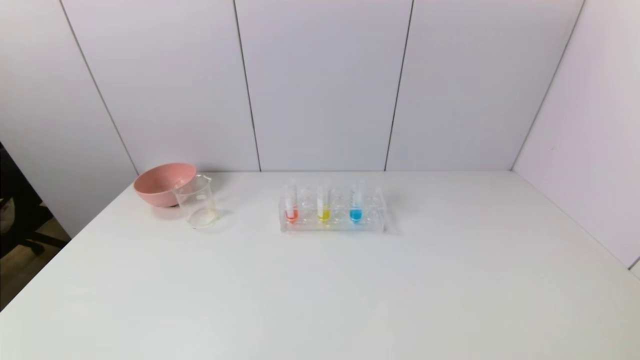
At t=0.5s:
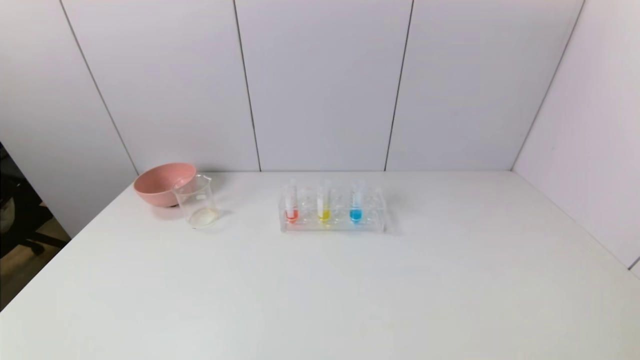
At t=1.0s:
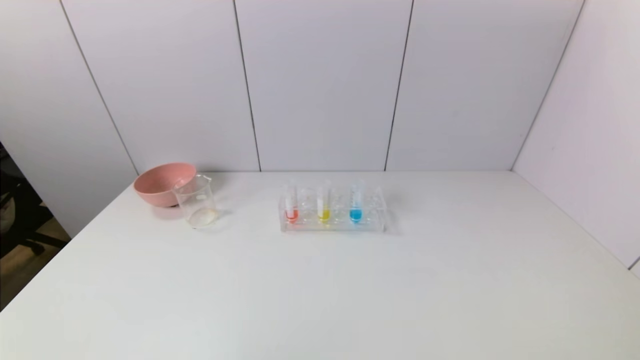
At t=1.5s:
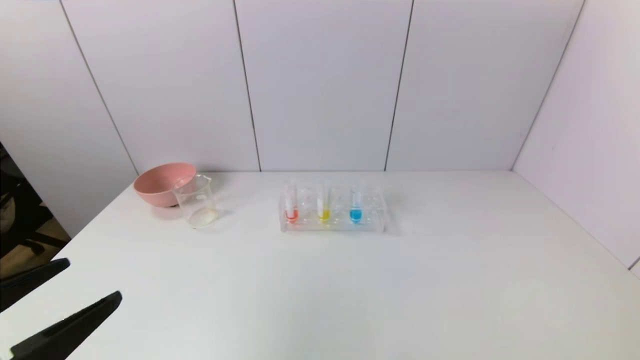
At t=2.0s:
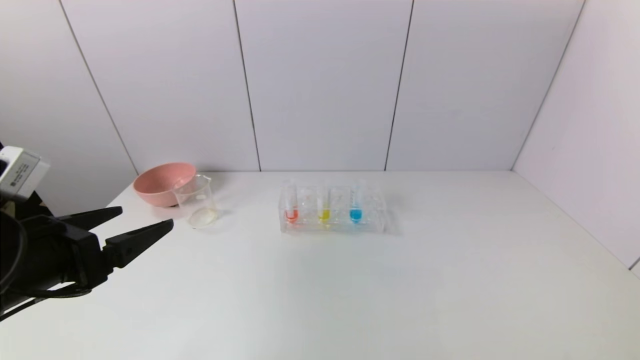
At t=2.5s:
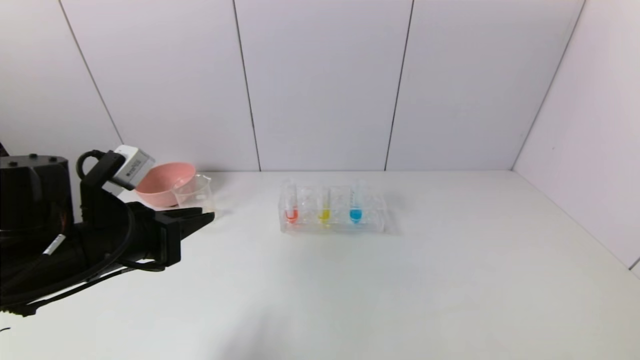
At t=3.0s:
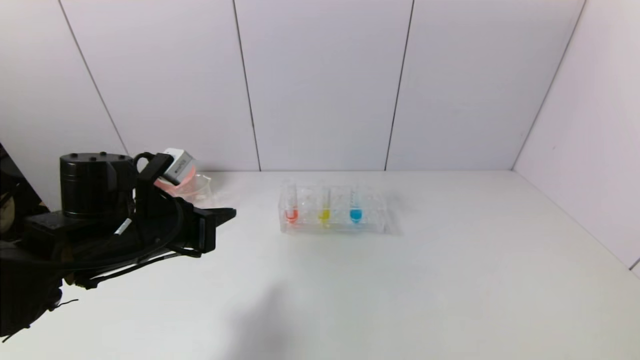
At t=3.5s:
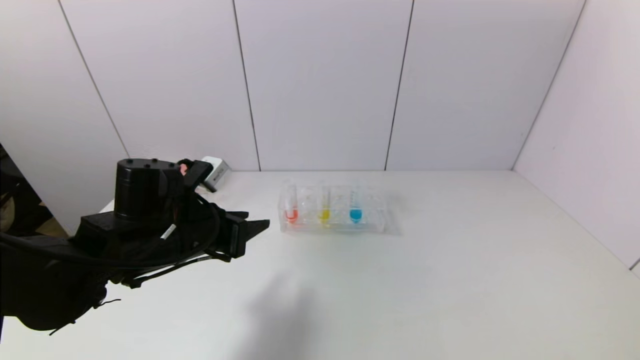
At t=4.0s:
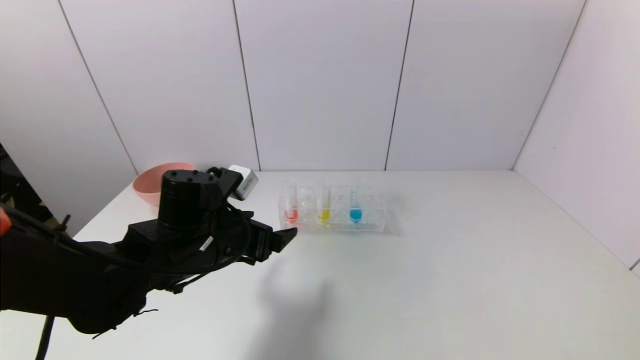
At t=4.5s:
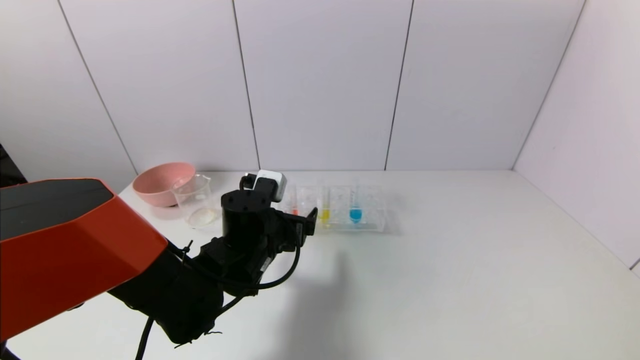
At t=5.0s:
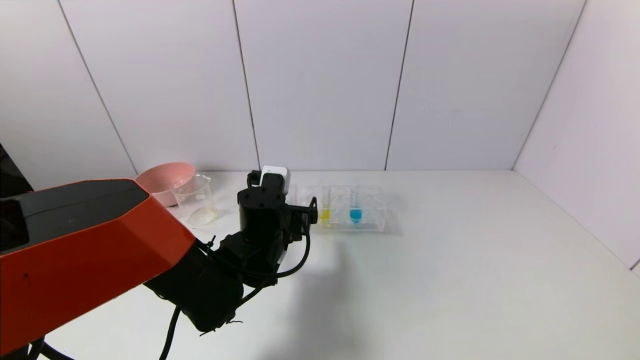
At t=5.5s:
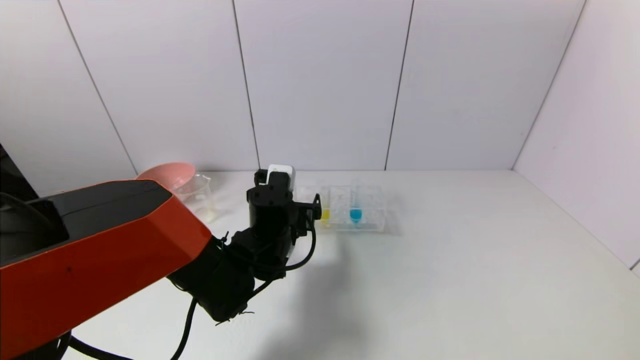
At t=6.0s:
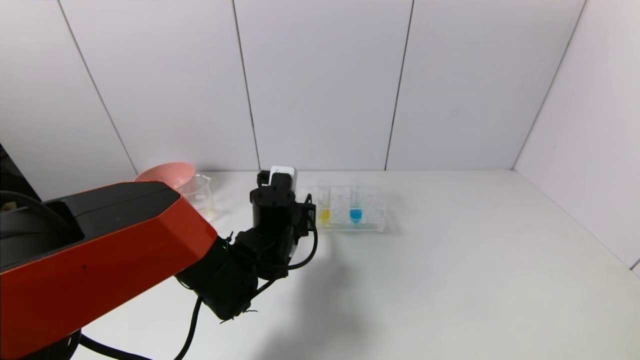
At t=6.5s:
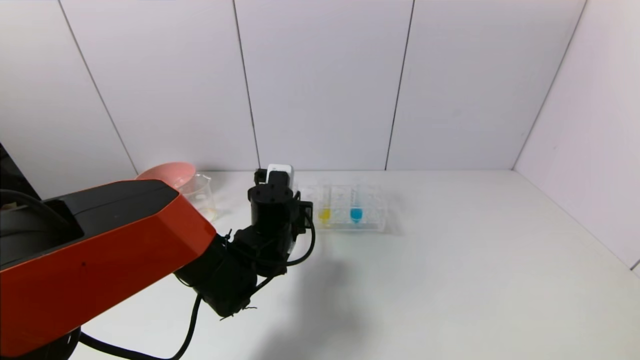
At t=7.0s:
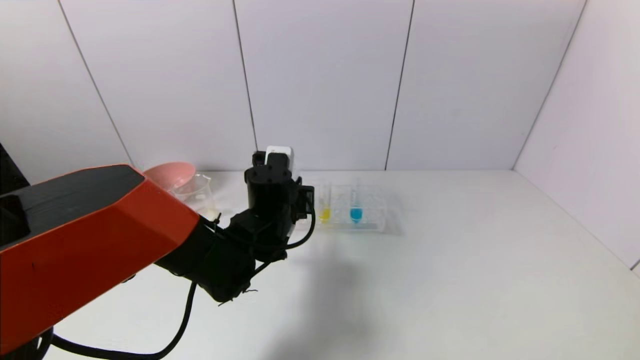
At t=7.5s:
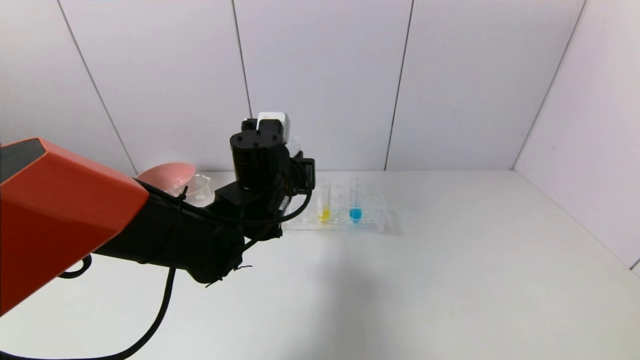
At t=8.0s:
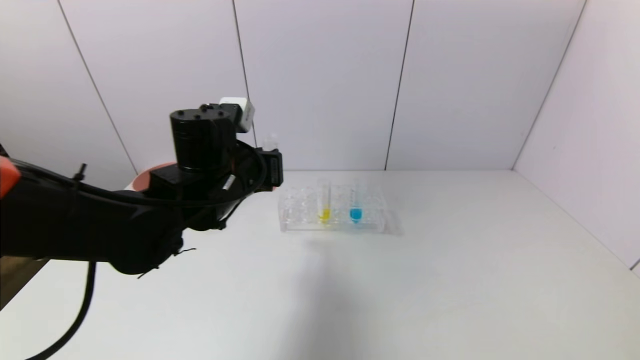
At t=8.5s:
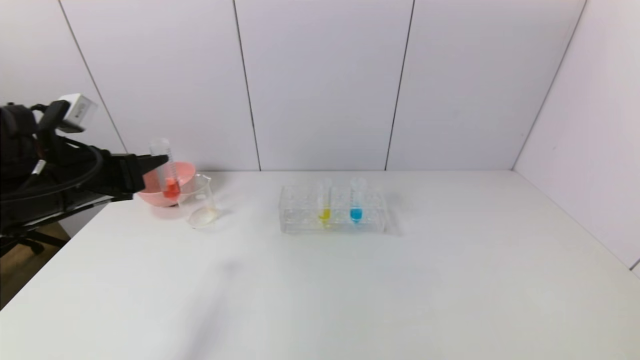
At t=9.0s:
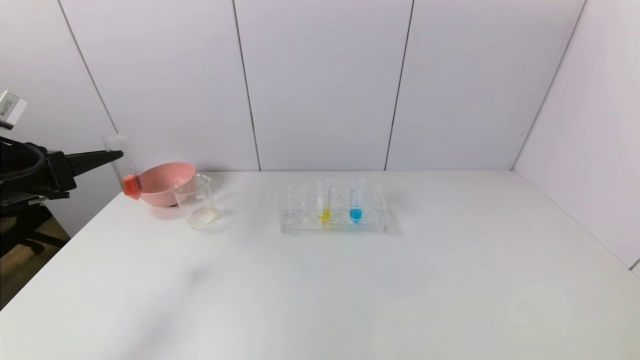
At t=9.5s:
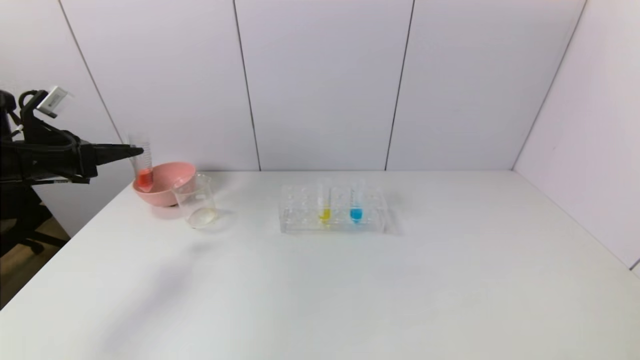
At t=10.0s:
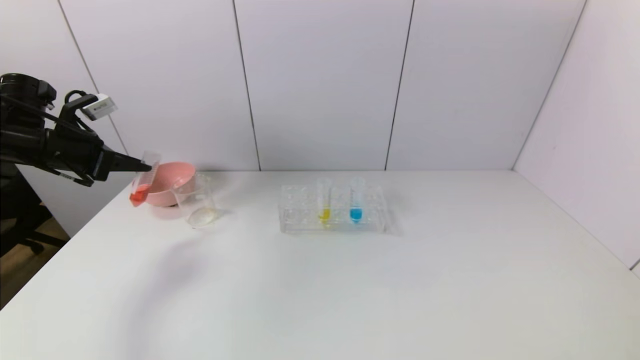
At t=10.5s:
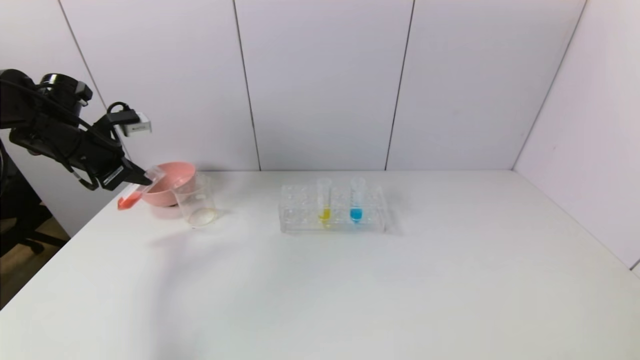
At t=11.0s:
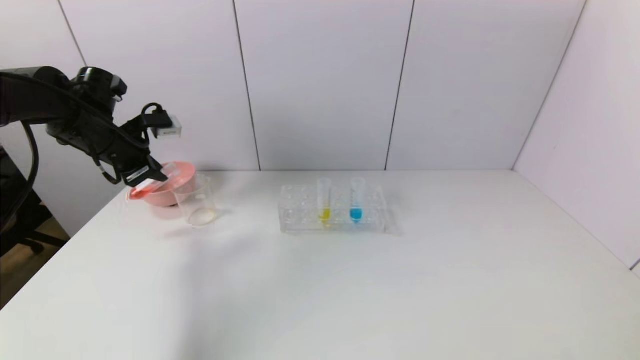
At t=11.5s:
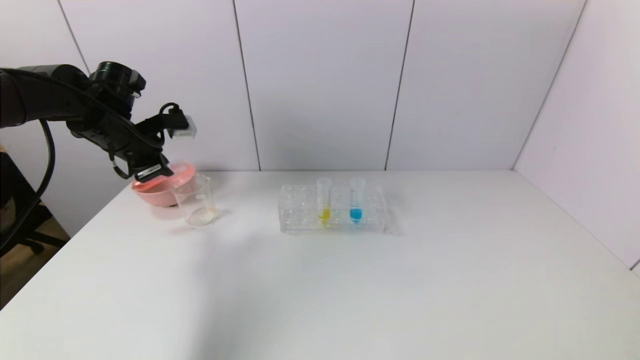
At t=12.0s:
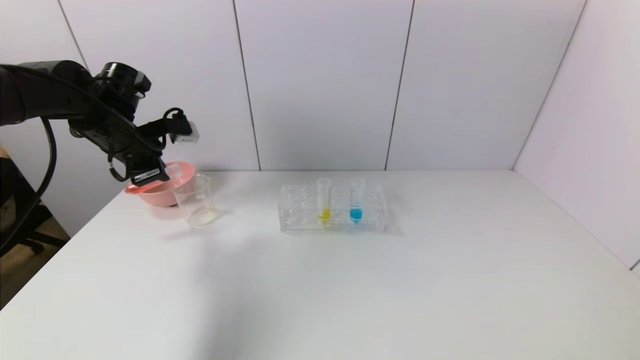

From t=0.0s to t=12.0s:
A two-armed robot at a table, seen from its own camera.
Task of the whole recording: pick up the test tube with yellow pigment and the test tube with red pigment by grippers and pour them into the beaker.
Step, from t=0.0s to t=6.5s: Grasp the red reagent with the left gripper.
From t=0.0s to t=2.0s: The left gripper is displaced forward and upward by some 20 cm.
From t=2.0s to t=4.0s: The left gripper is displaced to the right, forward and downward by some 20 cm, and closes and opens again.
From t=4.0s to t=6.0s: The left gripper moves to the right and forward, approximately 10 cm, and closes its fingers.
From t=6.0s to t=8.0s: The left gripper heads upward and to the left, covering some 15 cm, and closes up.
From t=8.0s to t=10.0s: The left gripper travels to the left by roughly 25 cm.
From t=10.0s to t=12.0s: The left gripper shifts some 10 cm to the right.

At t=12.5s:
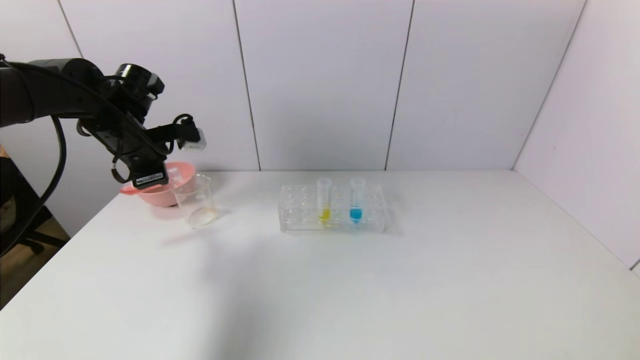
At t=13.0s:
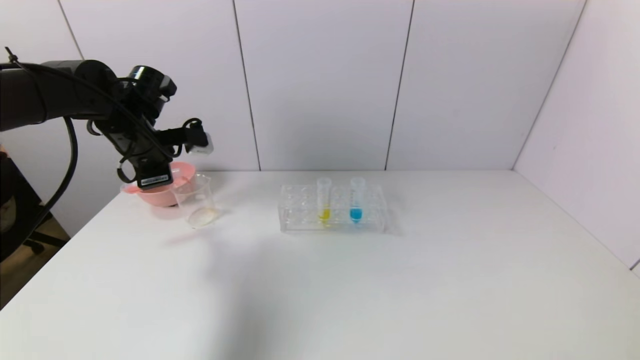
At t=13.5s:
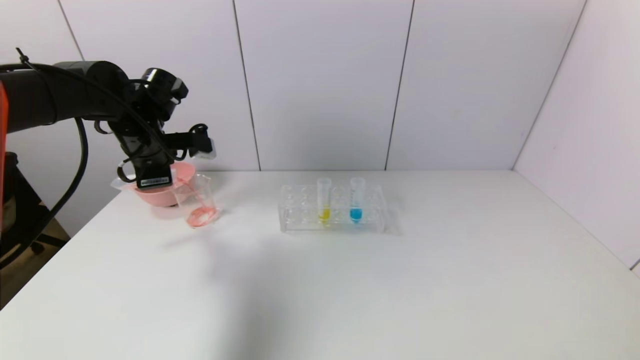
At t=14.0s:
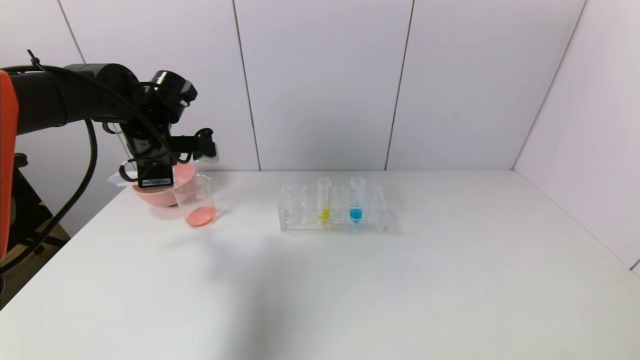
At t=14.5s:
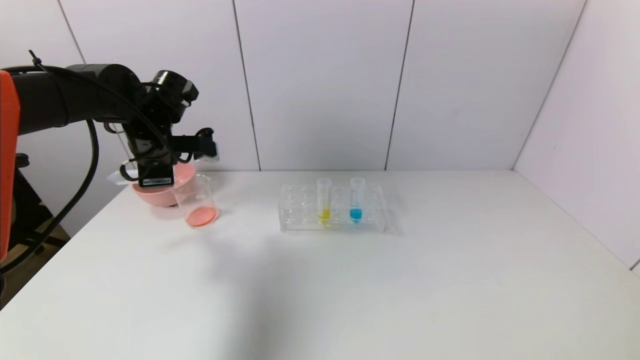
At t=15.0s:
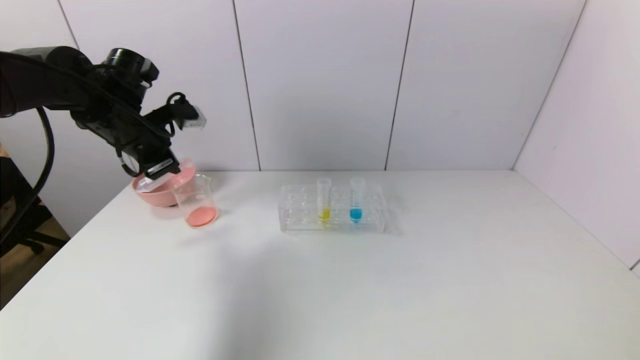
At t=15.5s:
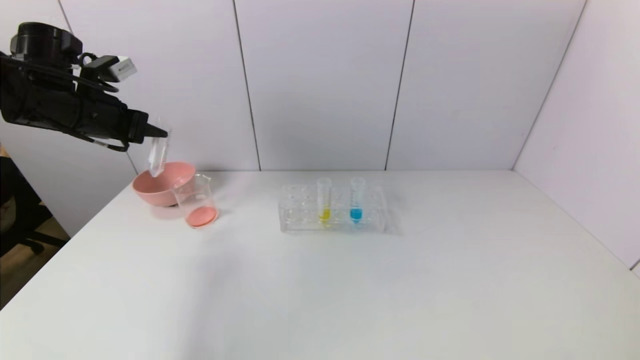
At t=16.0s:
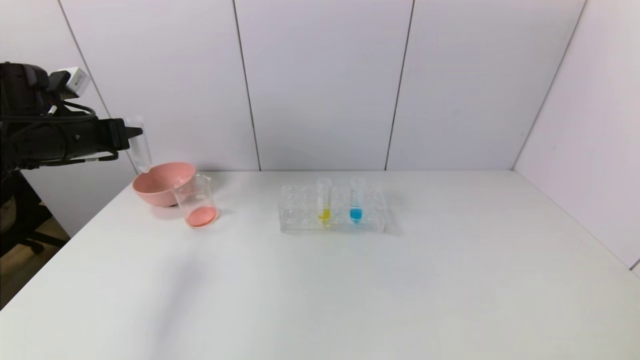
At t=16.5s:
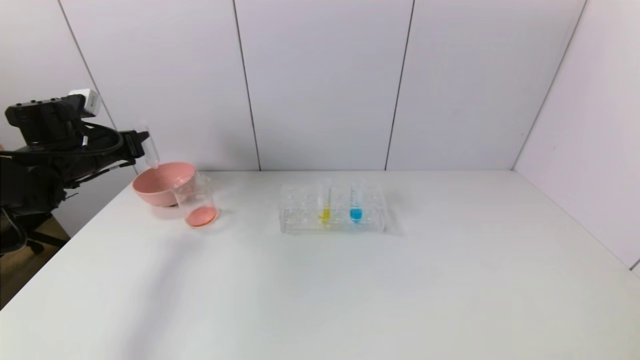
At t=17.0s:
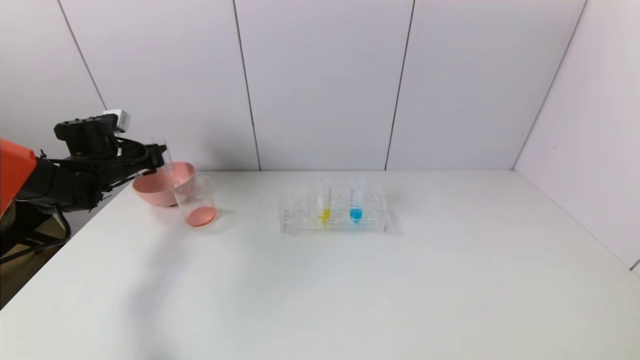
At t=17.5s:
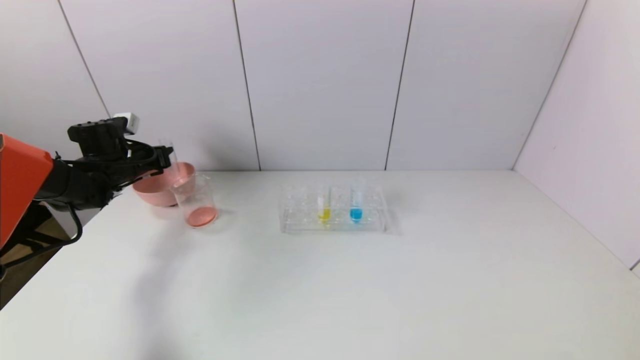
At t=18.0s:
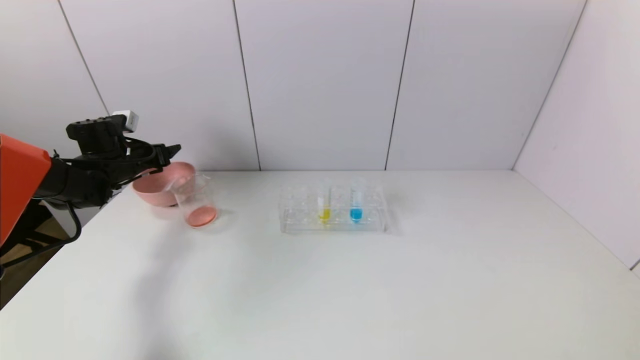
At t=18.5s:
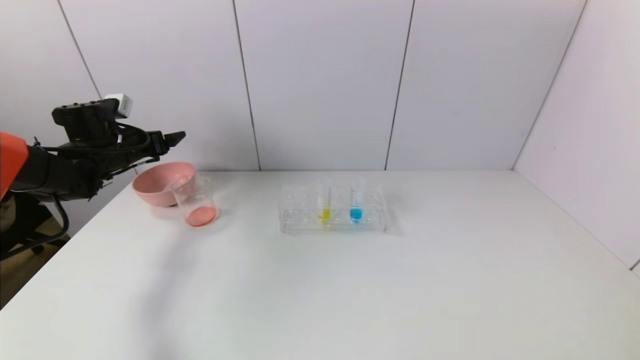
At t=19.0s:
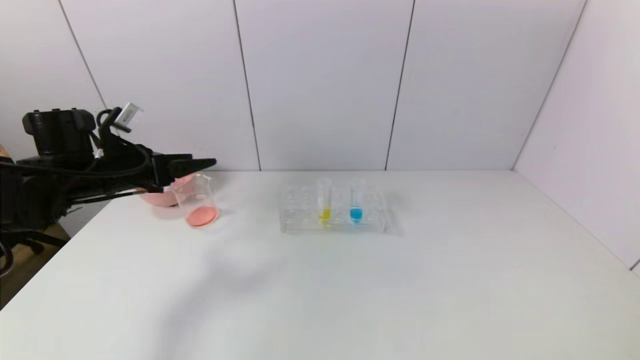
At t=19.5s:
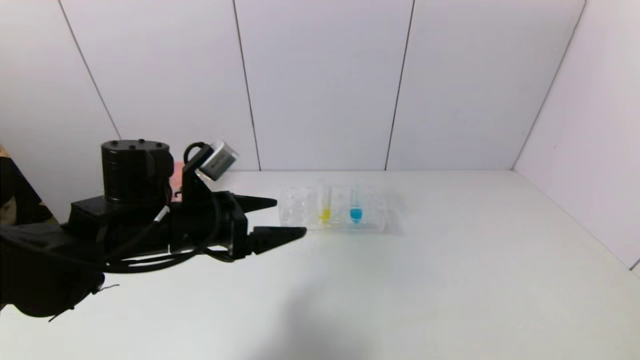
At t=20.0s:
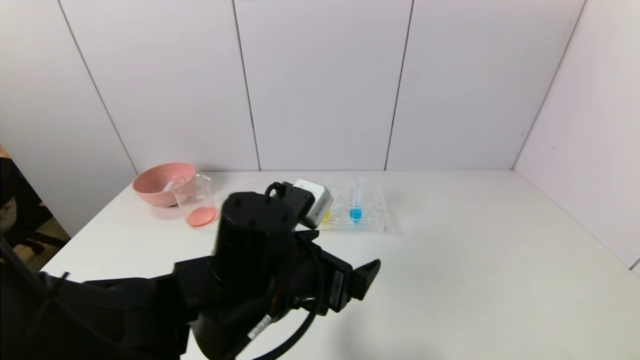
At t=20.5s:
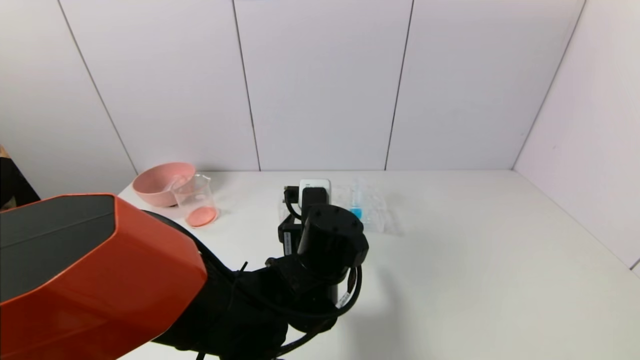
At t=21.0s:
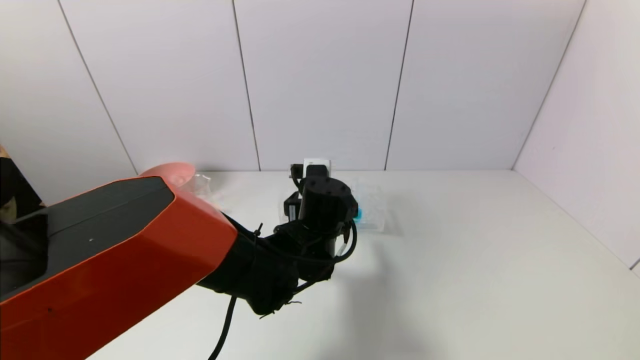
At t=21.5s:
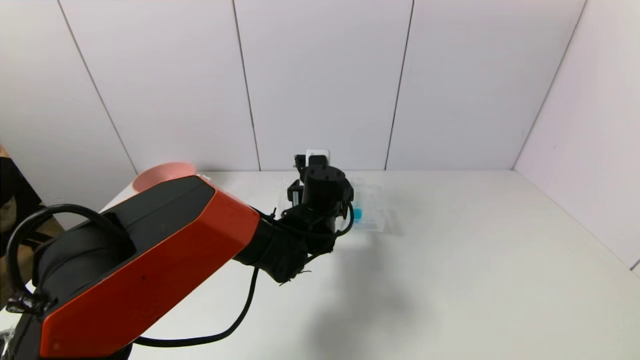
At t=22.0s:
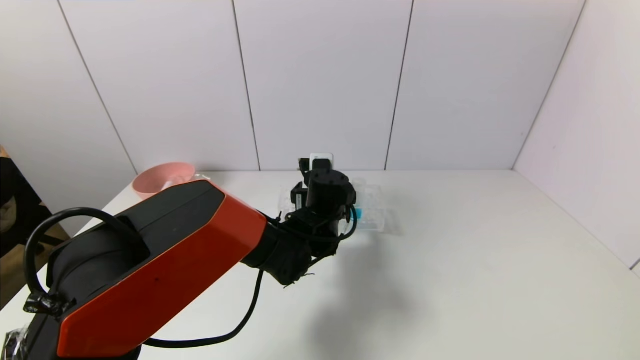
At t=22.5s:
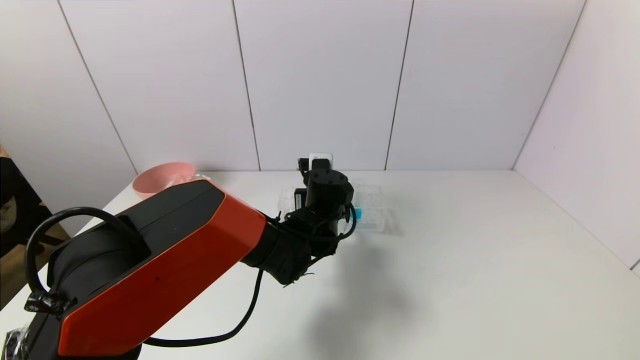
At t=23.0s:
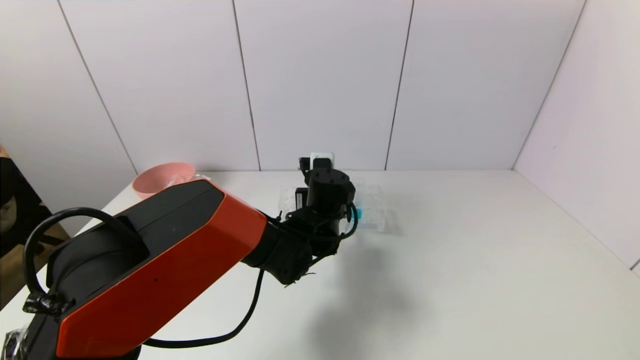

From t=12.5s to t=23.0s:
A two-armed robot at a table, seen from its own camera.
Task of the whole recording: pick up the test tube with yellow pigment and the test tube with red pigment by grippers and pour them into the beaker.
Step, from t=14.5s to t=18.0s: Place the test tube into the pink bowl with the left gripper.
Step, from t=18.5s to t=22.5s: Grasp the yellow reagent with the left gripper.
From t=14.5s to t=16.5s: The left gripper travels to the left by approximately 15 cm.
From t=16.5s to t=19.0s: The left gripper goes approximately 10 cm to the right and backward, and opens.
From t=19.0s to t=21.0s: The left gripper shifts some 30 cm to the right.
From t=21.0s to t=23.0s: The left gripper moves approximately 5 cm, and closes its fingers.
